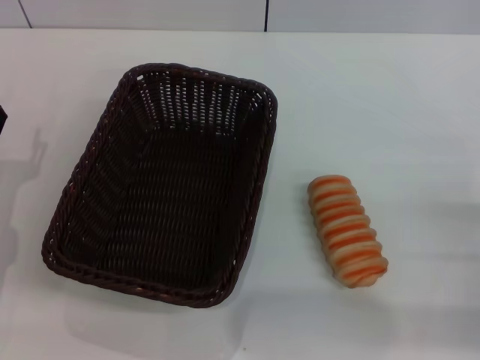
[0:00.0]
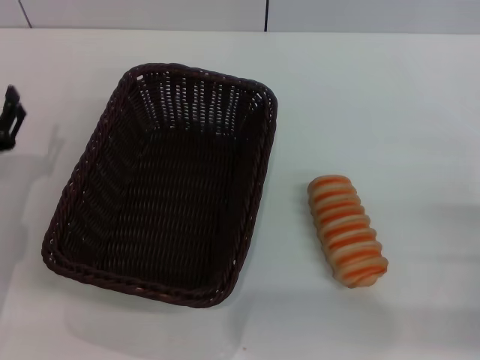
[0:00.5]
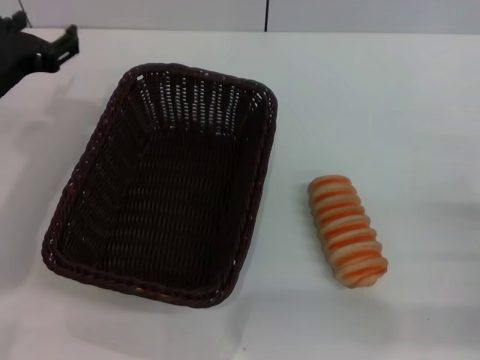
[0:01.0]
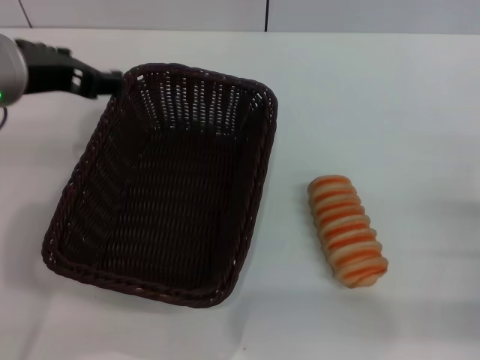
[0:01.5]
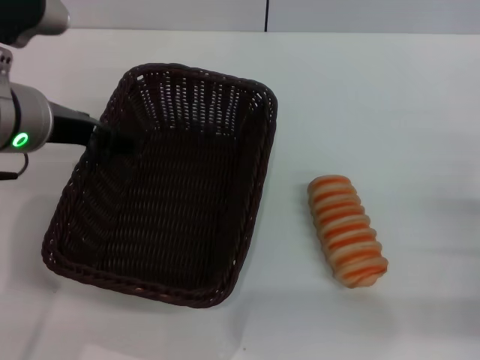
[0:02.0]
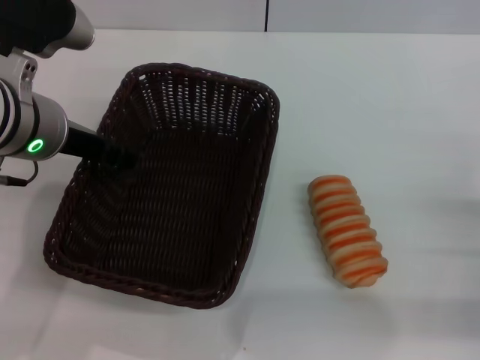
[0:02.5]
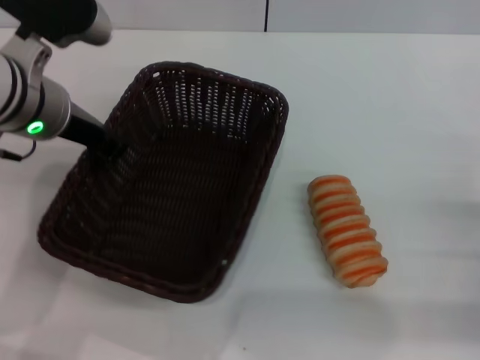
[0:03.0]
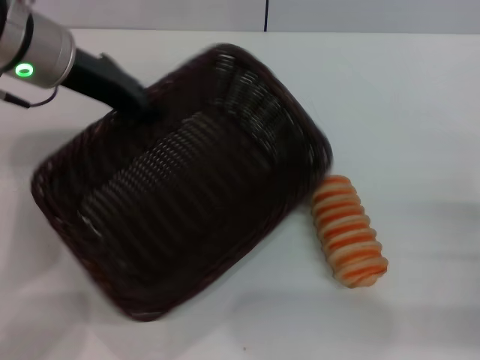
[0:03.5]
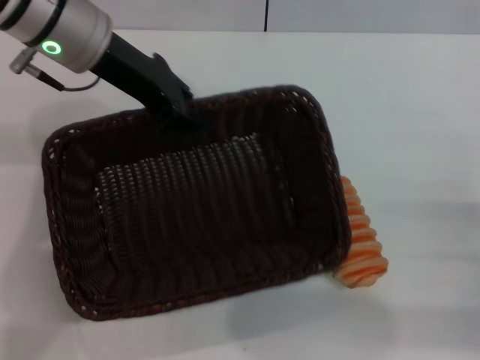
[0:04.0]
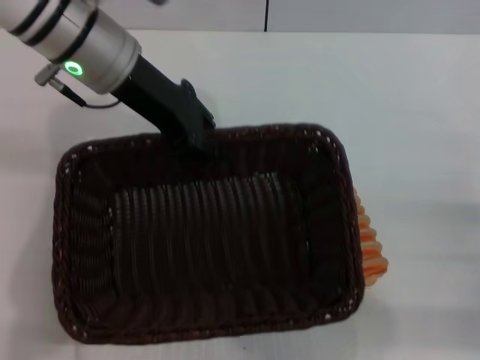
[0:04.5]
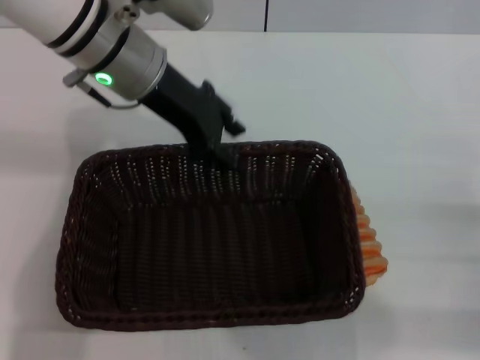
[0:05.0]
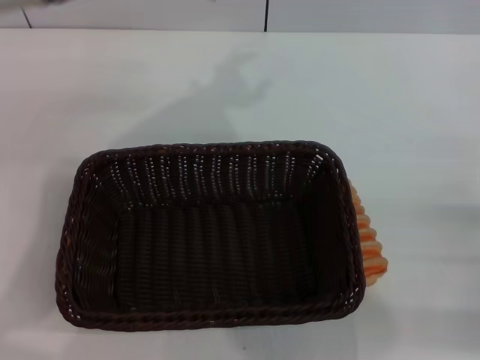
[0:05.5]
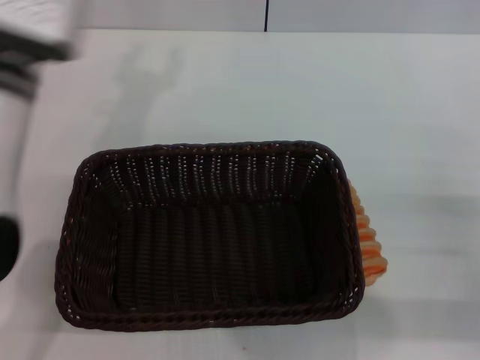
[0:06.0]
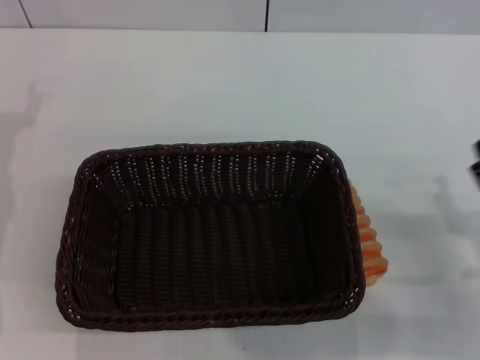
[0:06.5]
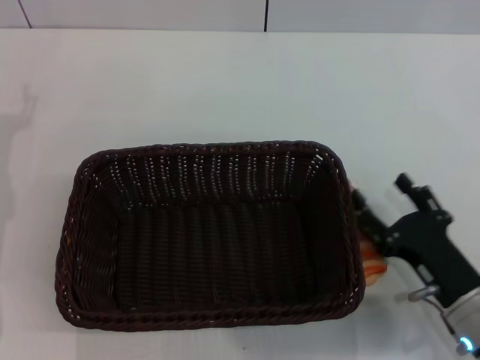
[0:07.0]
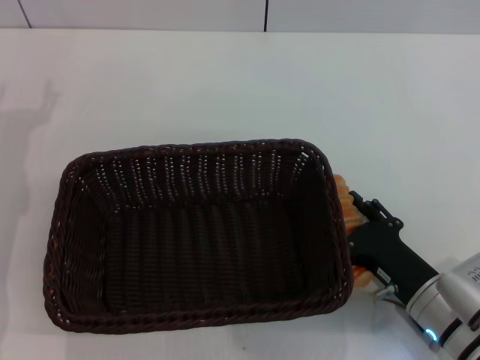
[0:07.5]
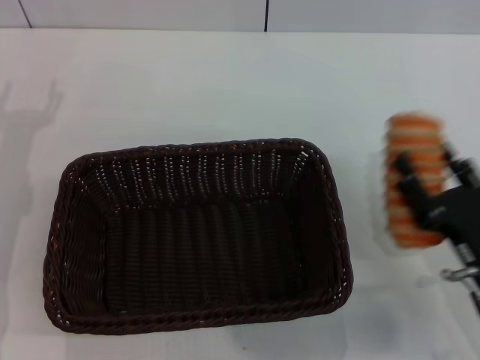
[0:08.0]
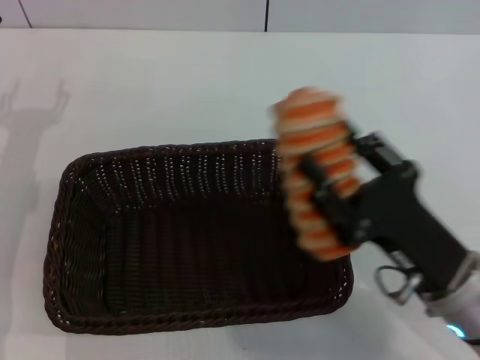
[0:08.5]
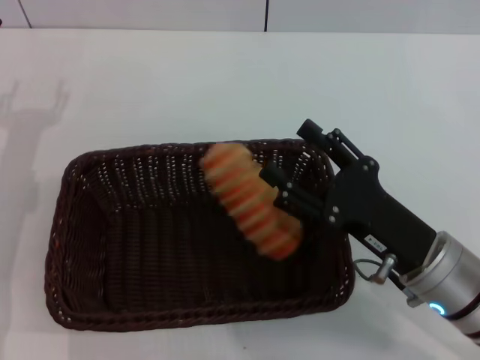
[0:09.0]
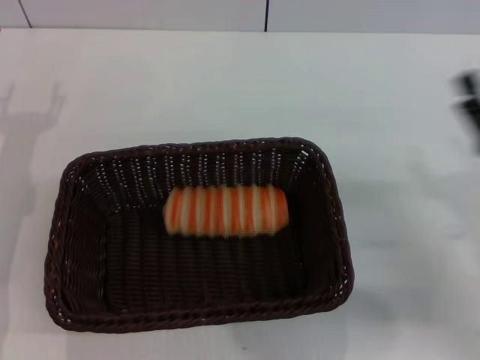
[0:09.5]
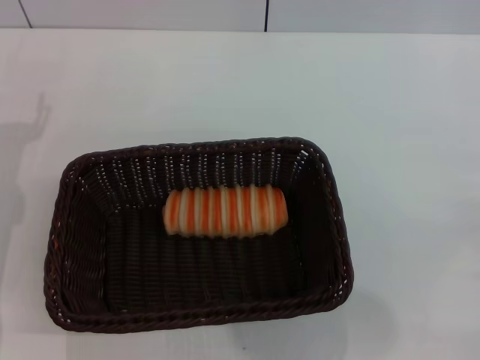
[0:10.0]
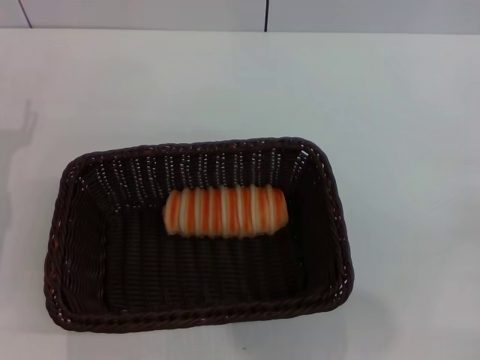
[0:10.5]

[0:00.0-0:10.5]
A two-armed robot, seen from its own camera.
Step, 0:00.0 to 0:03.0: Pick up the dark basket with the left gripper.
Step, 0:04.0 to 0:05.0: Place the dark basket in the center of view with the left gripper.
Step, 0:05.5 to 0:08.0: Pick up the long bread with the right gripper.
Step, 0:08.5 to 0:09.0: Place the long bread into the dark basket with the right gripper.
0:00.0 to 0:02.0: The left gripper shifts some 20 cm upward and to the right.
0:02.0 to 0:04.0: The left gripper travels forward by approximately 10 cm, and closes.
0:04.0 to 0:06.5: The right gripper changes place by approximately 5 cm, while the left gripper travels to the left, downward and backward by approximately 20 cm, and opens up.
0:06.5 to 0:08.5: The right gripper heads to the left, covering approximately 10 cm, and closes its fingers.
0:08.5 to 0:10.5: The right gripper heads to the right, covering about 15 cm, and opens its fingers.

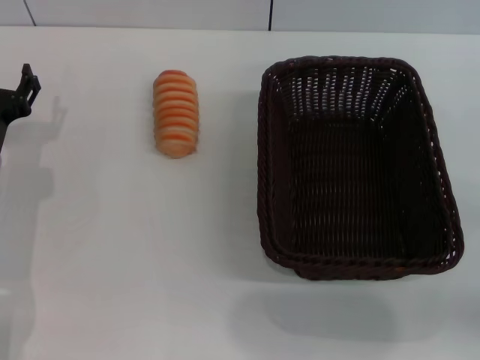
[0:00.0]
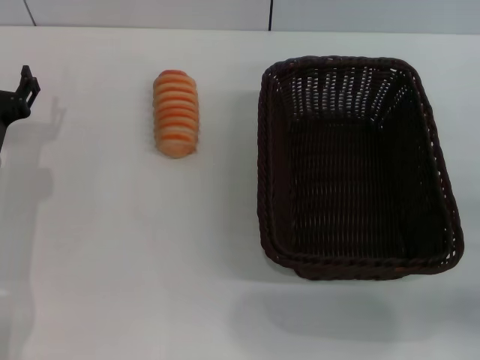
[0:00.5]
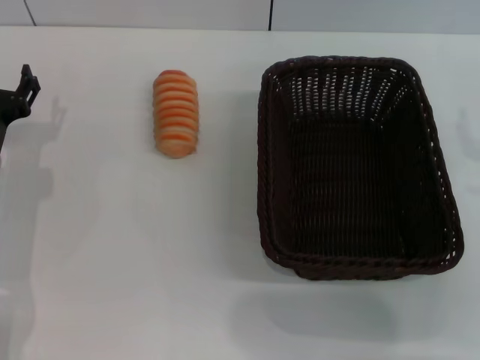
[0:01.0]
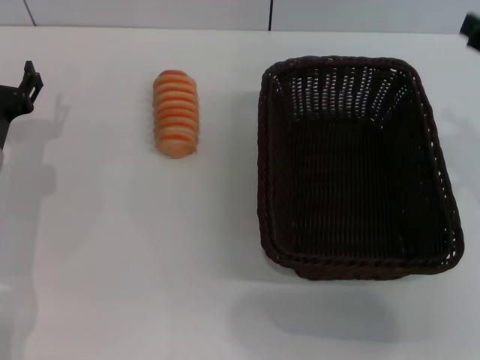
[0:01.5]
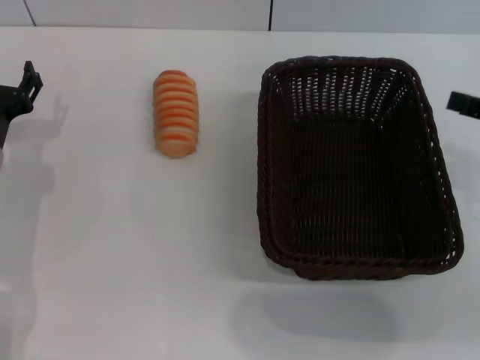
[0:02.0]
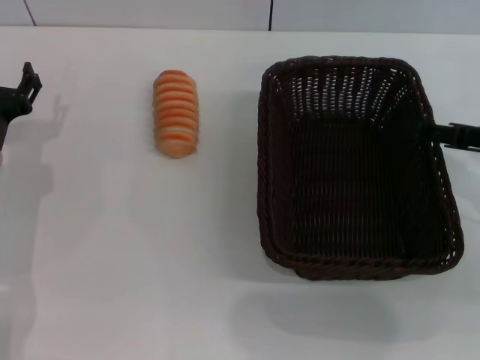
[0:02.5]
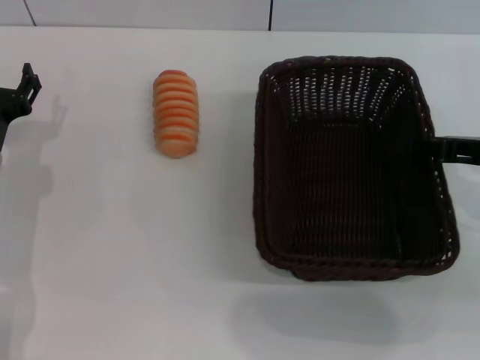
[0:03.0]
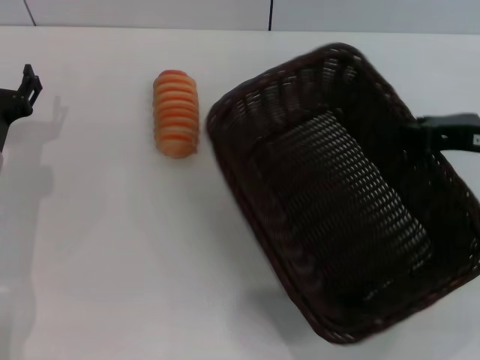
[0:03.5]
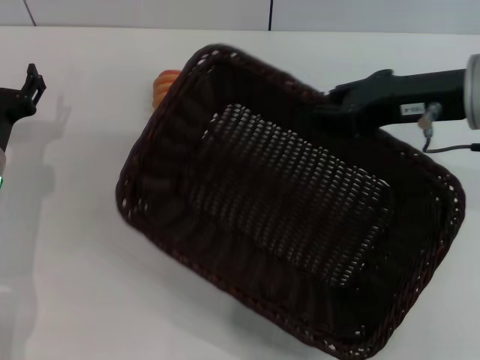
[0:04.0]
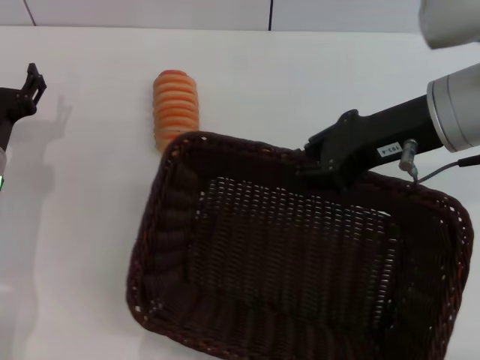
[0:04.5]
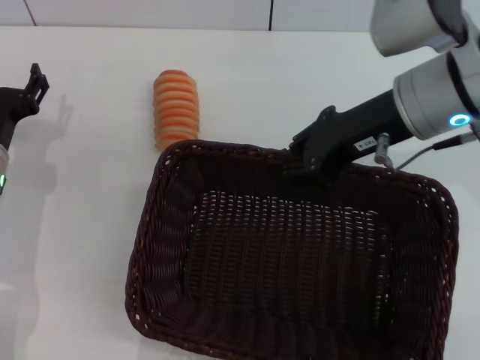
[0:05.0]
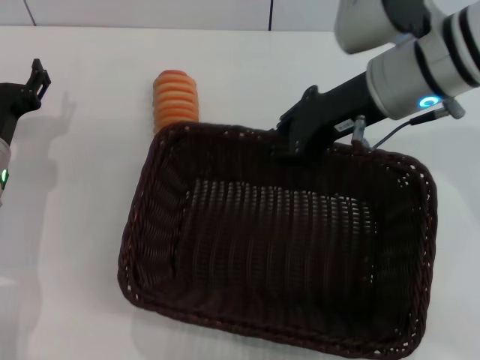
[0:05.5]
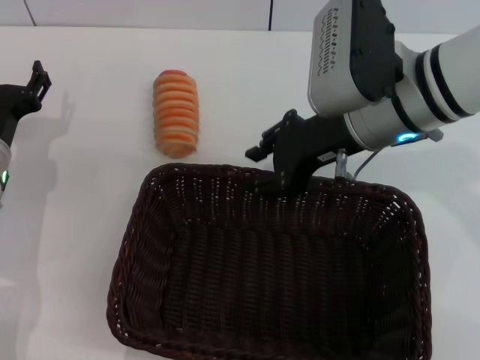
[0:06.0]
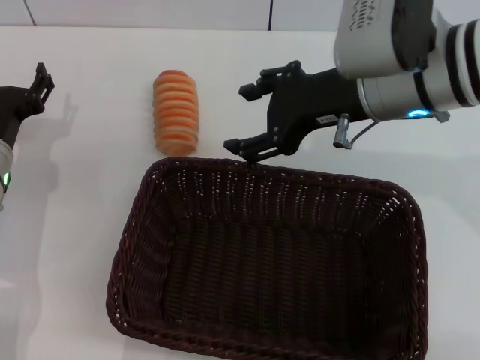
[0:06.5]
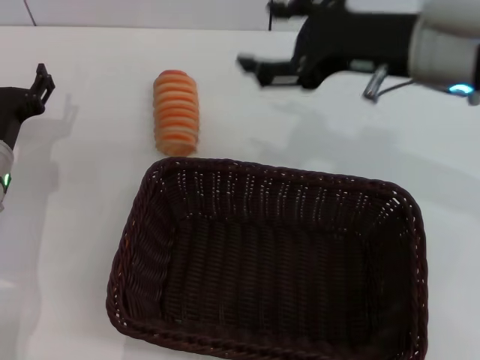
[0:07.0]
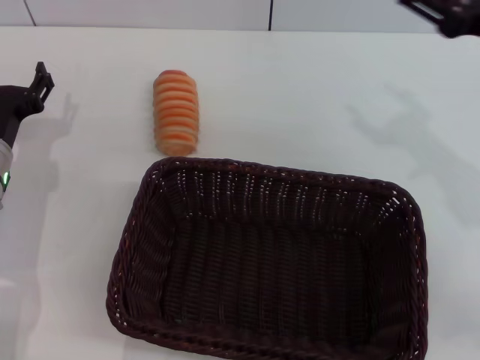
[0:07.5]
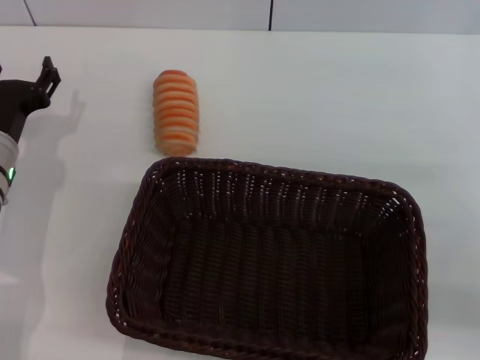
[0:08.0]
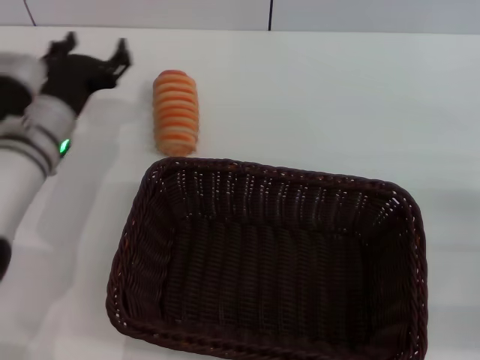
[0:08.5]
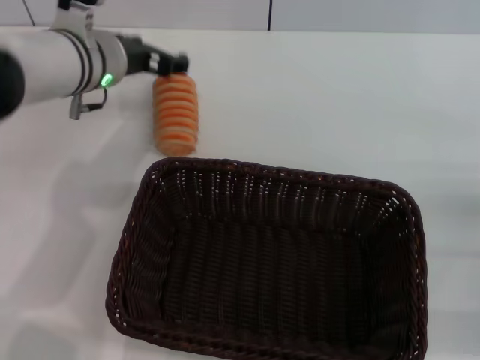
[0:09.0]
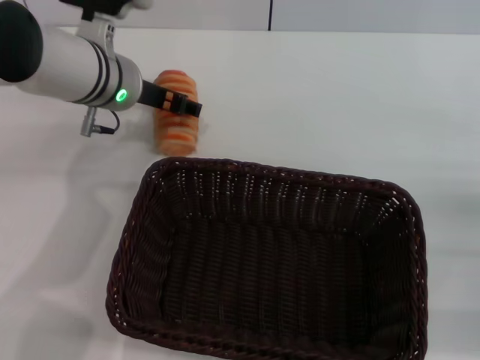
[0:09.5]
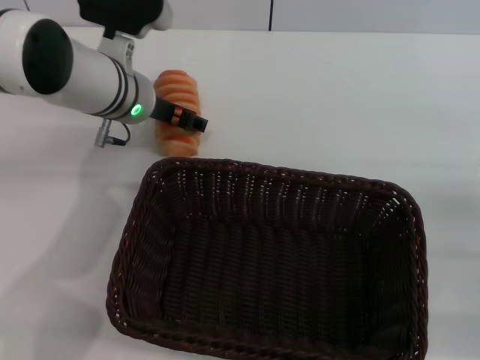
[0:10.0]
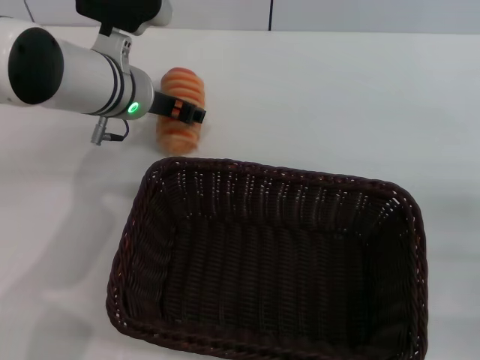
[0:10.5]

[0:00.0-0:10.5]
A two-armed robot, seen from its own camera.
Step, 0:00.0 to 0:03.5: Pick up the dark basket with the right gripper.
Step, 0:04.0 to 0:06.5: Place the dark basket in the center of view with the right gripper.
0:02.0 to 0:04.0: The right gripper moves to the left and forward, some 15 cm, and closes up.
0:04.0 to 0:06.5: The right gripper is displaced to the left by some 5 cm, and opens.
0:06.5 to 0:08.5: The right gripper is displaced to the right, backward and downward by roughly 30 cm. Meanwhile the left gripper shifts roughly 5 cm to the right.
0:08.5 to 0:10.5: The left gripper goes about 10 cm to the right and upward, and closes. Meanwhile the right gripper closes up.

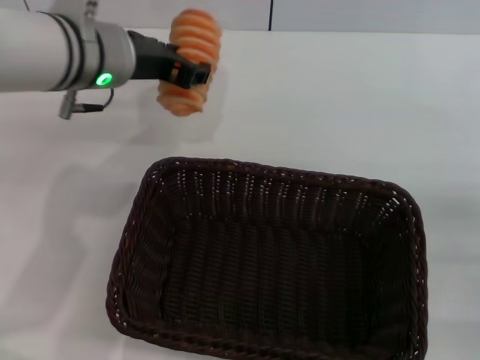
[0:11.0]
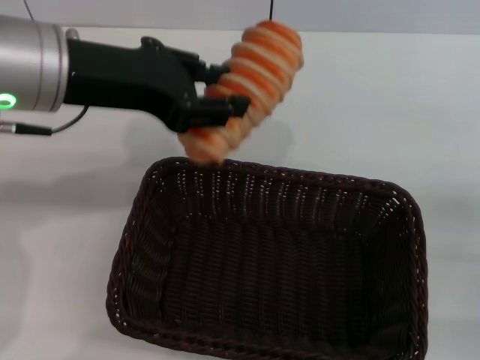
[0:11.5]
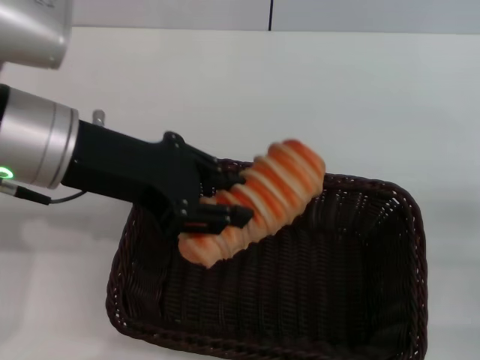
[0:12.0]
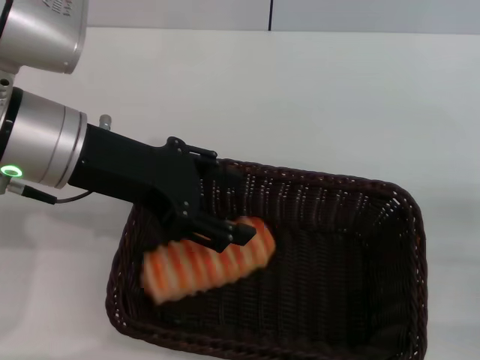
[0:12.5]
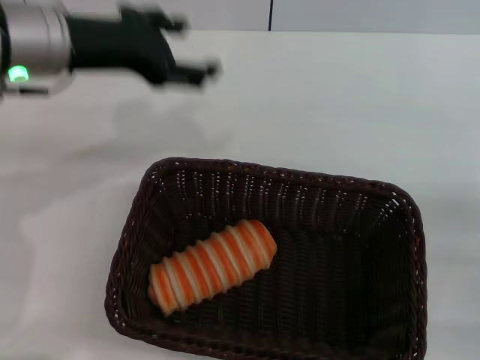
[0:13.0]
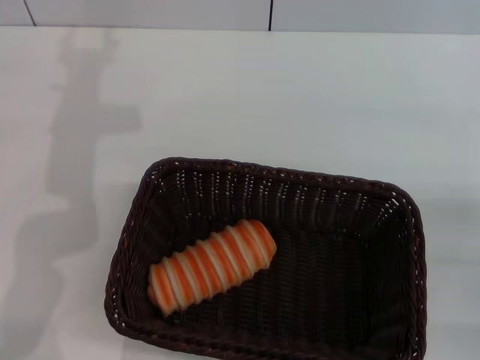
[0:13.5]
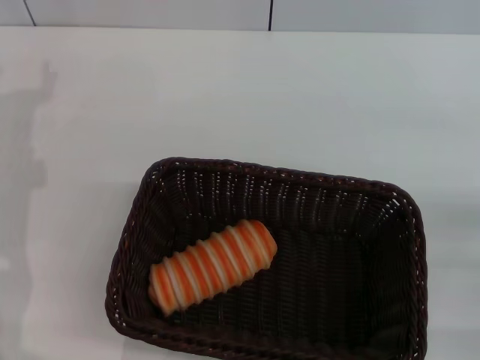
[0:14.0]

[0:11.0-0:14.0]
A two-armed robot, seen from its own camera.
Step, 0:11.0 to 0:13.0: Place the long bread into the dark basket with the left gripper.
0:11.0 to 0:12.5: The left gripper travels backward by approximately 5 cm, and closes and opens again.
0:12.5 to 0:14.0: The left gripper shifts some 15 cm to the left and downward.
